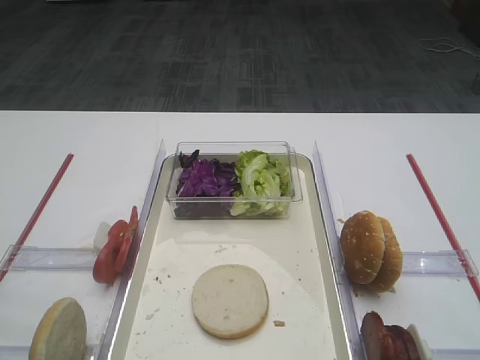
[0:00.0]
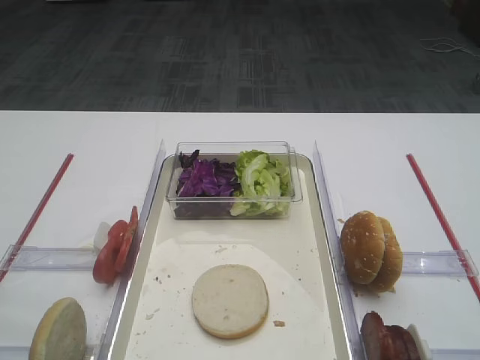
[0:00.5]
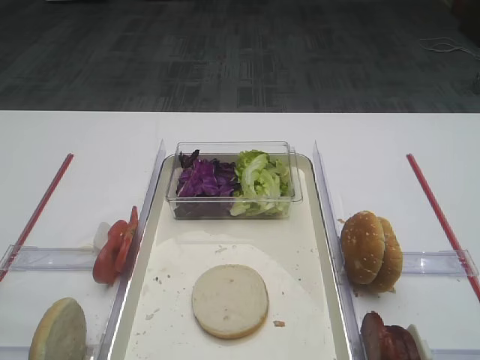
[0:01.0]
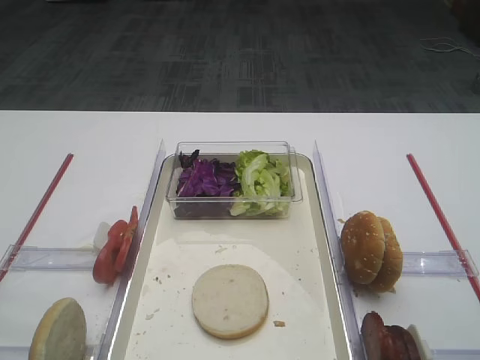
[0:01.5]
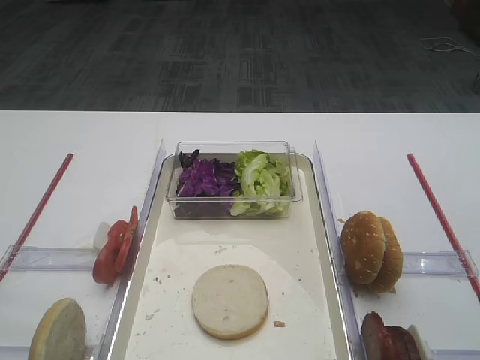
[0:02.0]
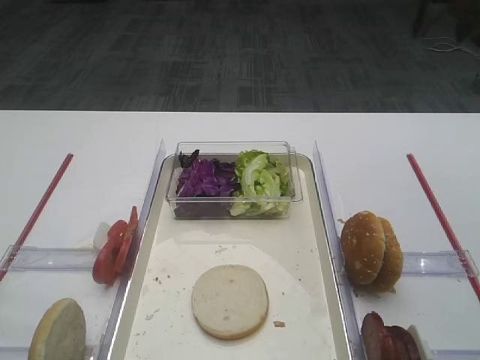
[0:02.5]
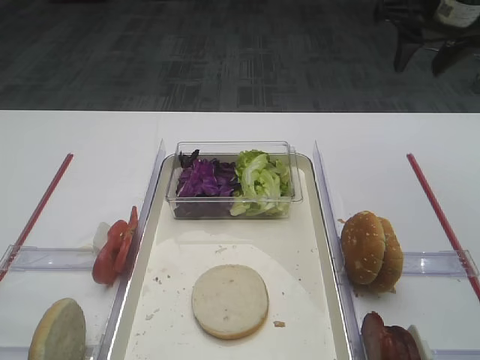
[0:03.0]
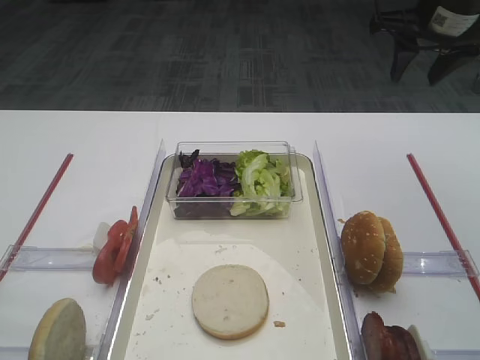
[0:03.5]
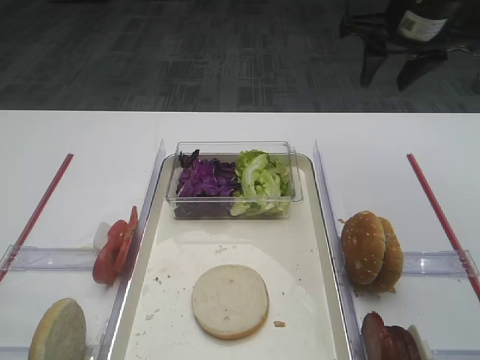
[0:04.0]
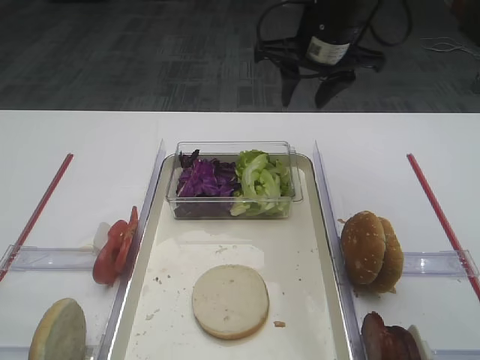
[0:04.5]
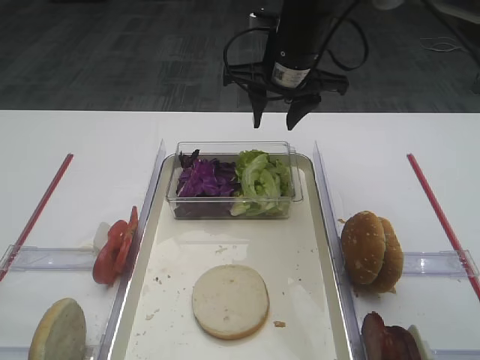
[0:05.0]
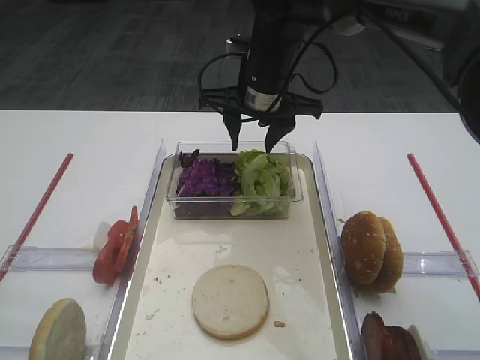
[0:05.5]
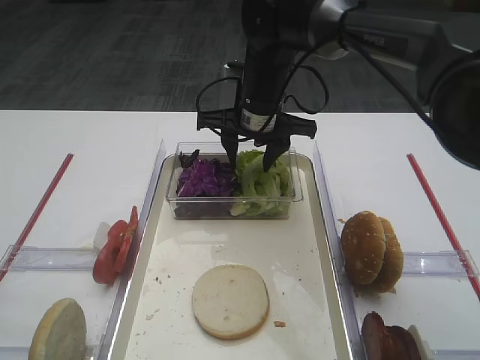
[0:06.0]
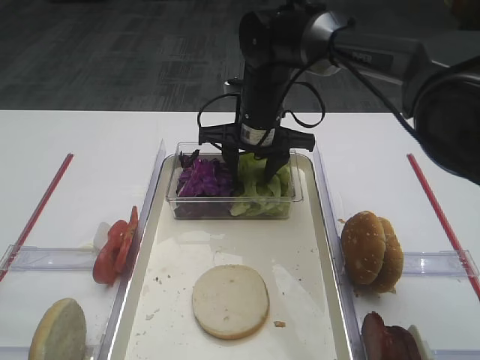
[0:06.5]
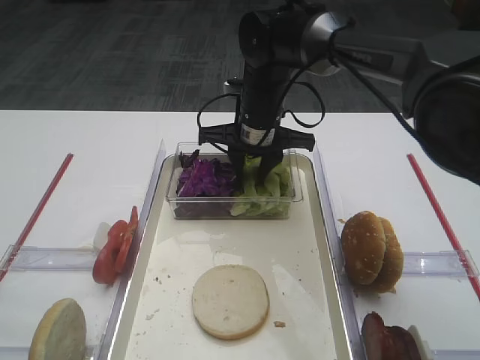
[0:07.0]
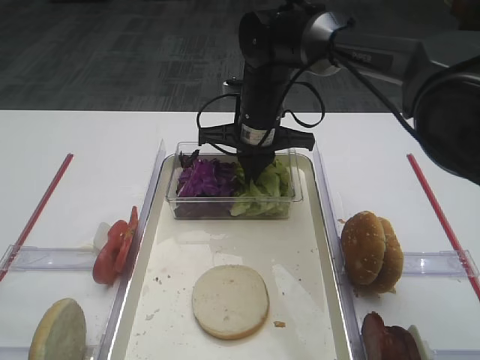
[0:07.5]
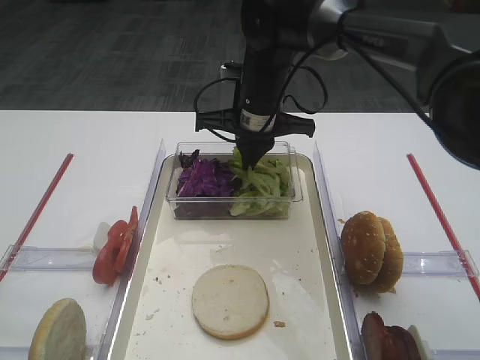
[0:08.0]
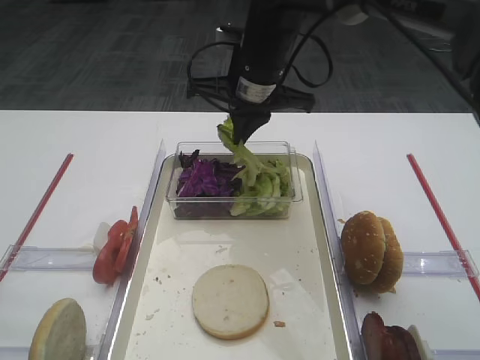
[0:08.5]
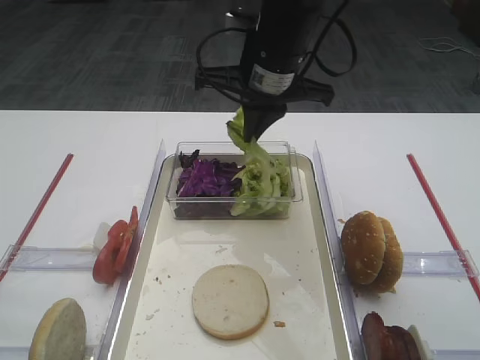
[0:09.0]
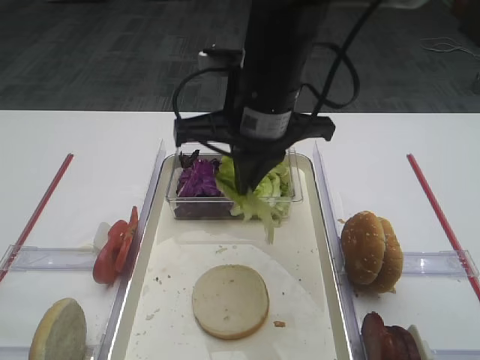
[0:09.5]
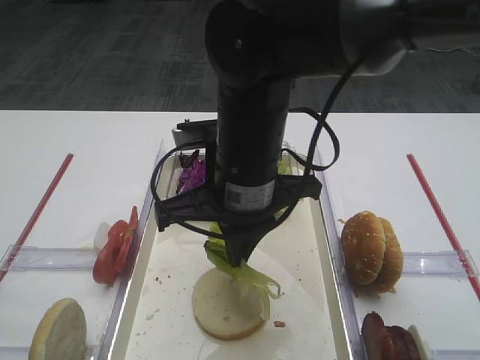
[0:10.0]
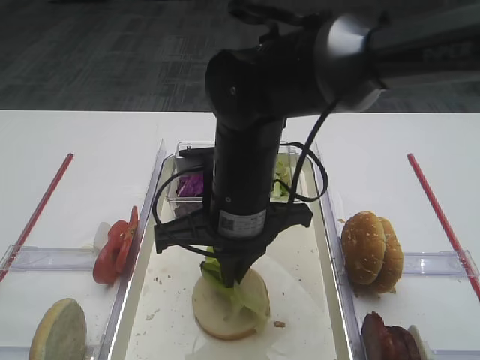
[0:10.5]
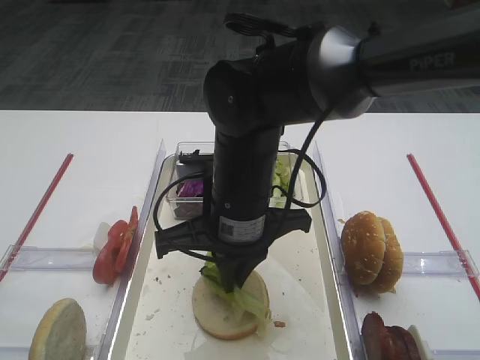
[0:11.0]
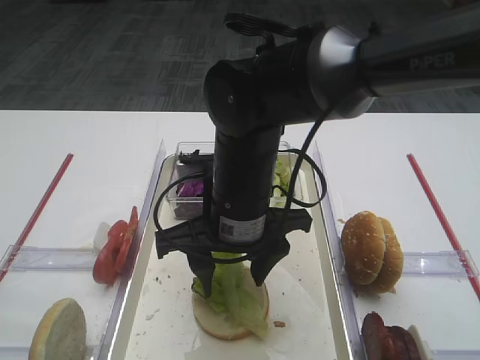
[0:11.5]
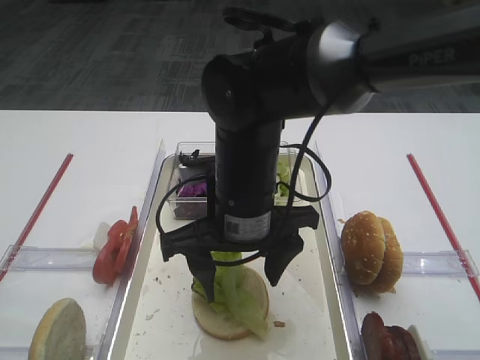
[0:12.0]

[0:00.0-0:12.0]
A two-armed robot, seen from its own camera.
Step, 0:00.0 to 0:08.0: Pick up the lettuce leaf with the right gripper.
0:02.0 to 0:04.0: The right gripper heads forward and downward, covering about 20 cm.
0:04.0 to 0:06.0: The right gripper heads to the left and downward, covering about 20 cm.
0:06.0 to 0:08.0: The right gripper closes up.
0:08.0 to 0:10.0: The right gripper is displaced backward by some 15 cm.
0:10.0 to 0:12.0: The right gripper opens its fingers.

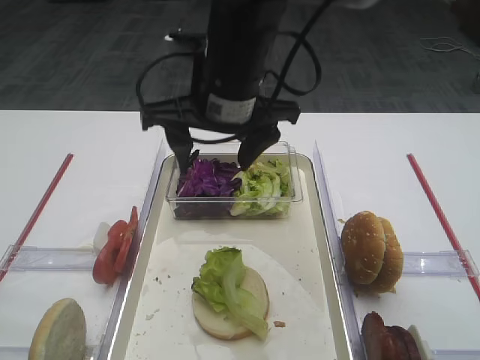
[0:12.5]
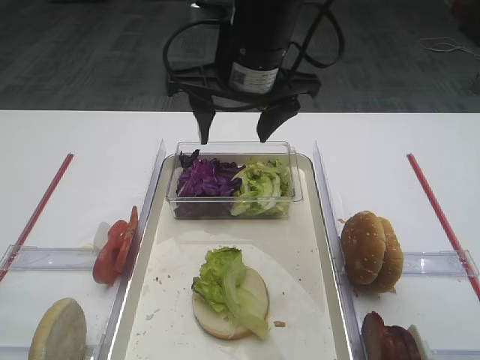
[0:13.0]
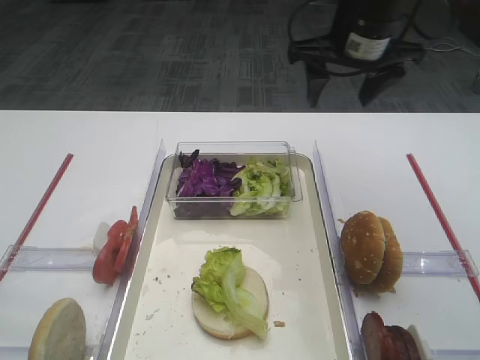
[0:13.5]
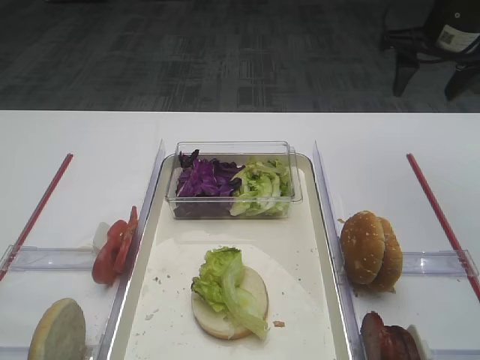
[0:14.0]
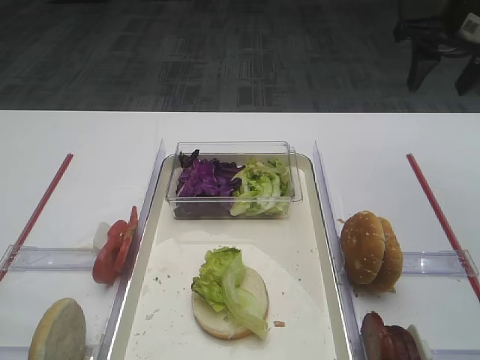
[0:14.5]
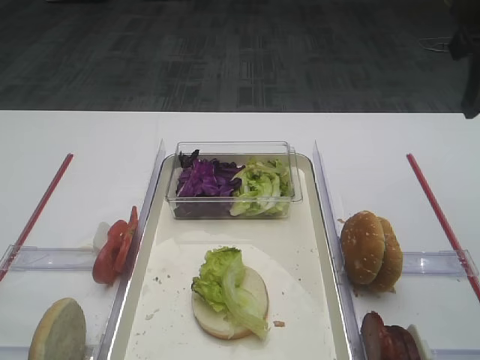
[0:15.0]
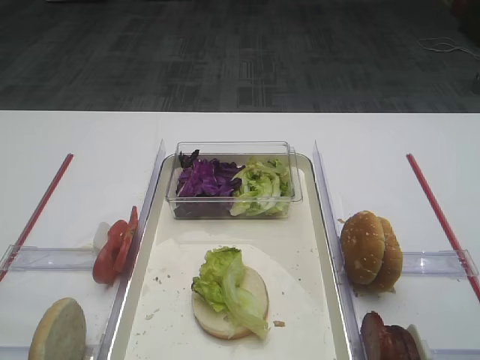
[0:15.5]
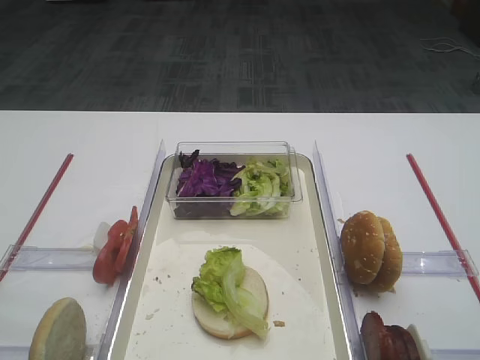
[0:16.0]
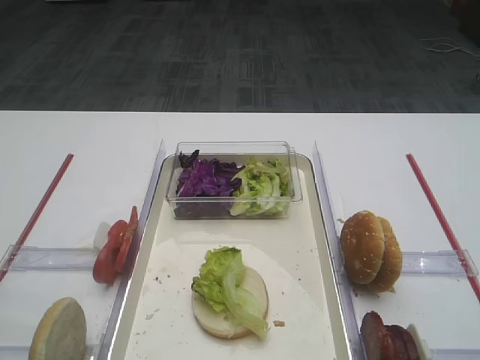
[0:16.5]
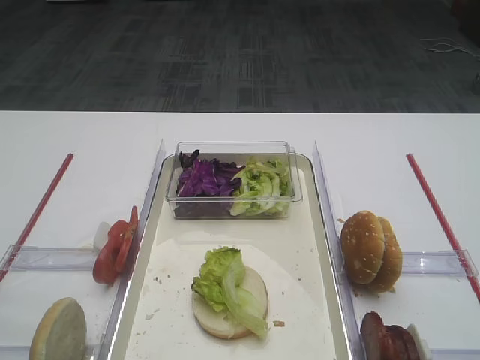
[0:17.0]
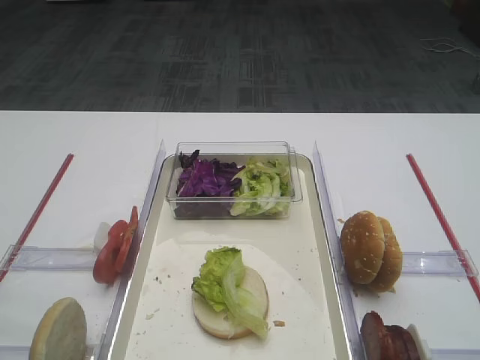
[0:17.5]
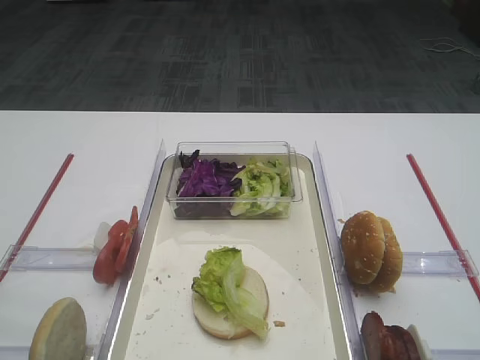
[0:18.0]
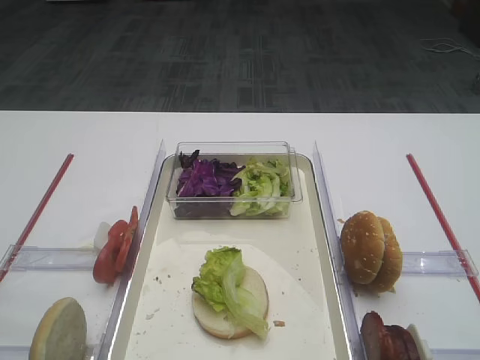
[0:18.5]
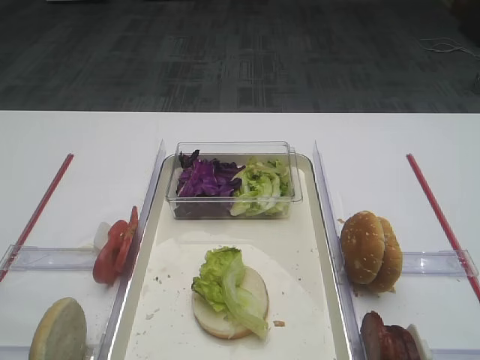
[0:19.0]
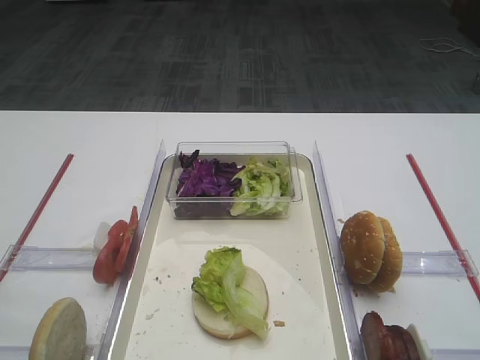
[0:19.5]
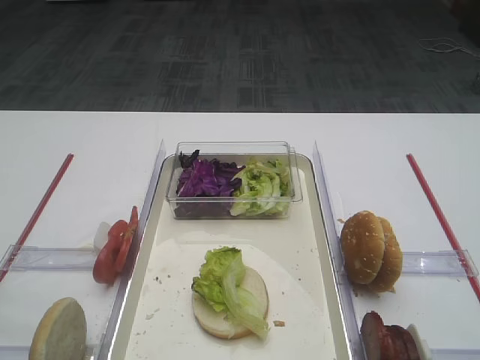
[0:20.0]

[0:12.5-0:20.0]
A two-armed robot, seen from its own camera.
0:12.5 to 0:14.5: The right gripper goes some 25 cm to the right.
0:14.5 to 0:16.5: The right gripper travels backward by approximately 40 cm.
0:18.0 to 0:20.0: The two grippers keep their place.
